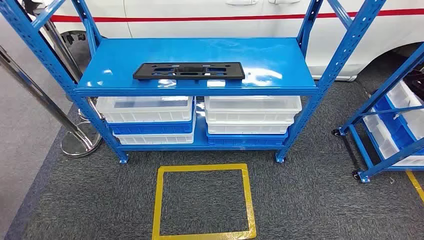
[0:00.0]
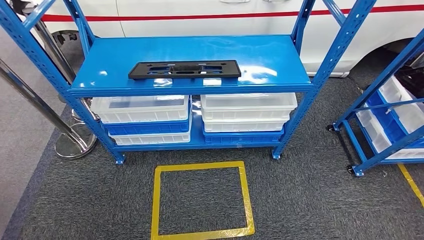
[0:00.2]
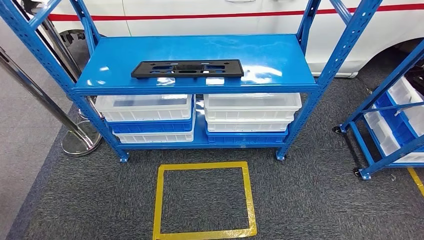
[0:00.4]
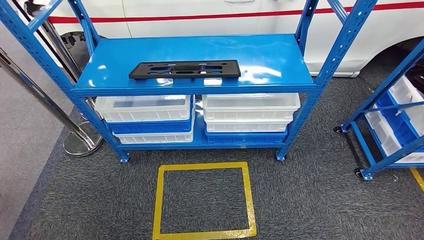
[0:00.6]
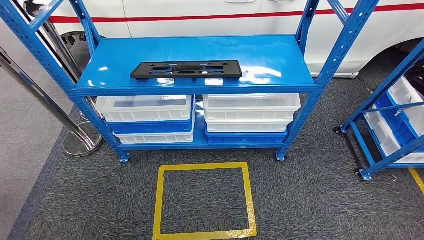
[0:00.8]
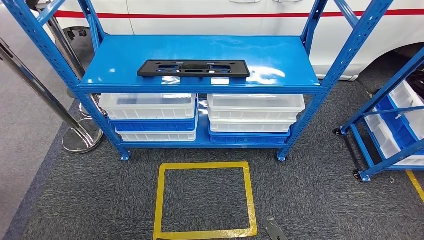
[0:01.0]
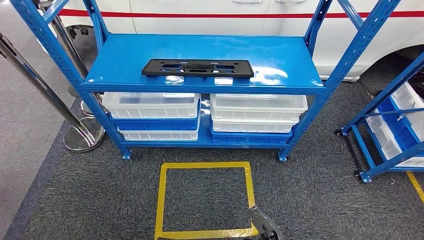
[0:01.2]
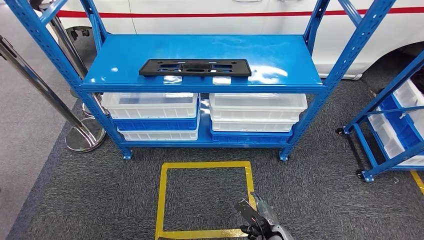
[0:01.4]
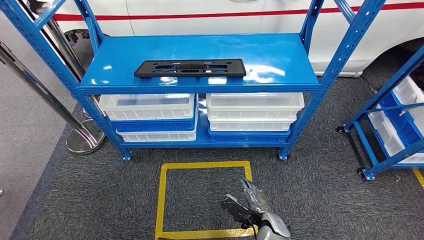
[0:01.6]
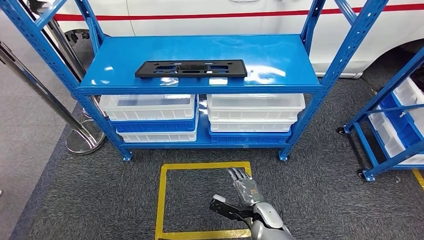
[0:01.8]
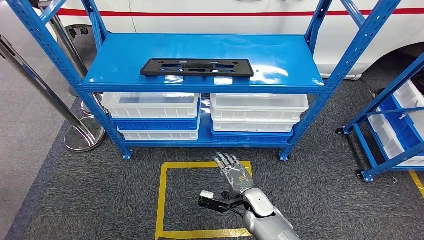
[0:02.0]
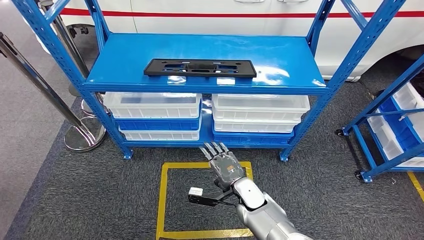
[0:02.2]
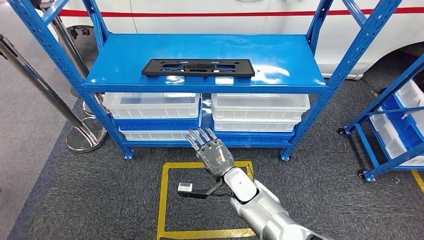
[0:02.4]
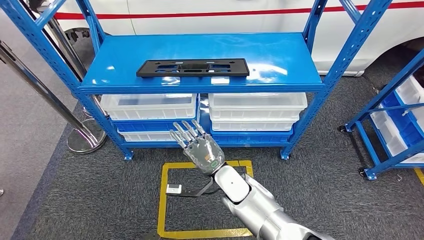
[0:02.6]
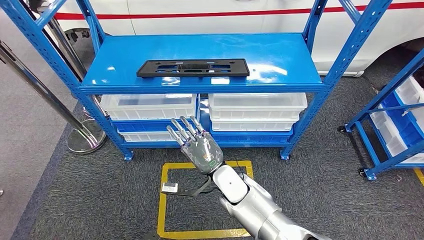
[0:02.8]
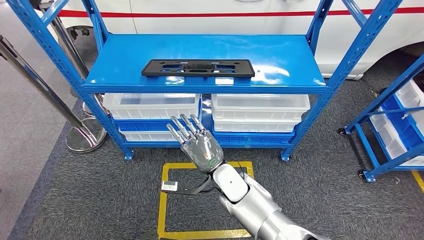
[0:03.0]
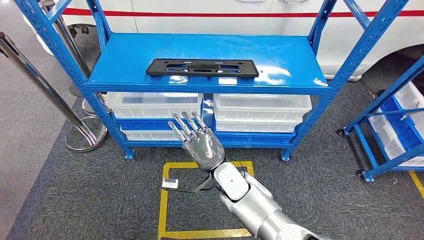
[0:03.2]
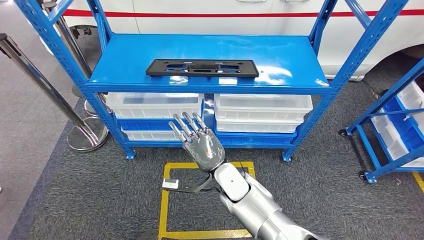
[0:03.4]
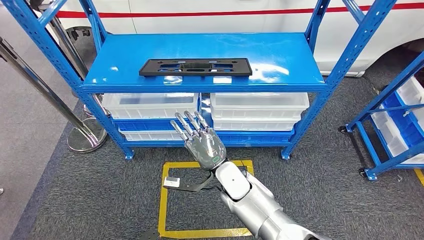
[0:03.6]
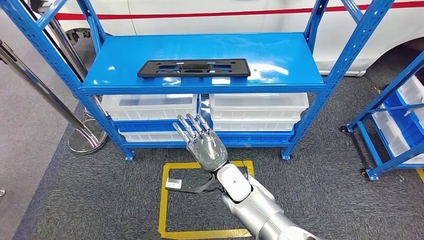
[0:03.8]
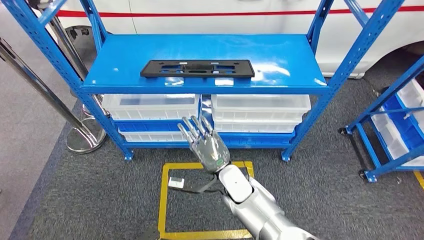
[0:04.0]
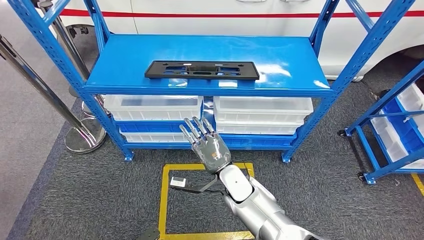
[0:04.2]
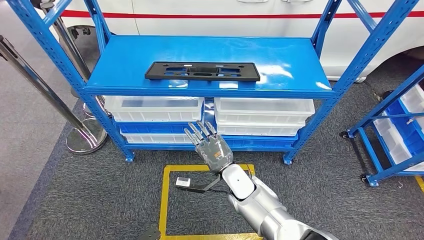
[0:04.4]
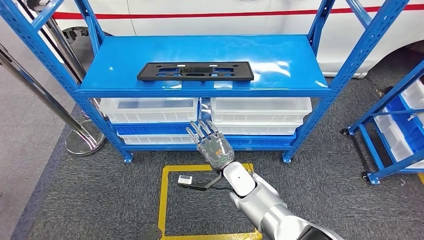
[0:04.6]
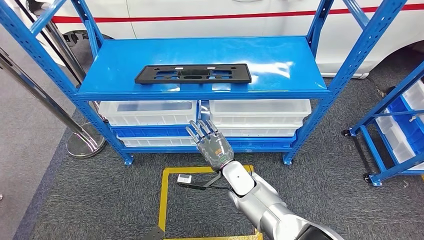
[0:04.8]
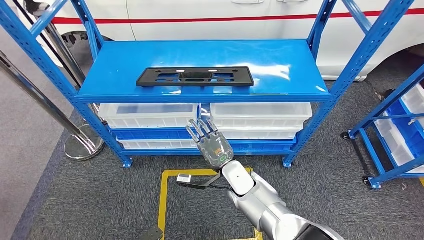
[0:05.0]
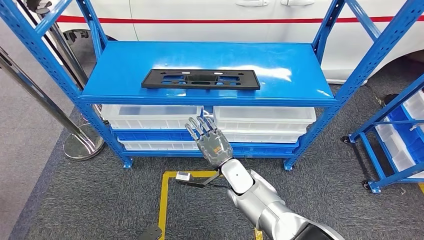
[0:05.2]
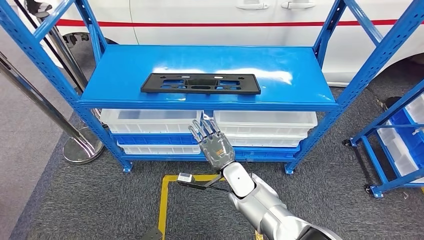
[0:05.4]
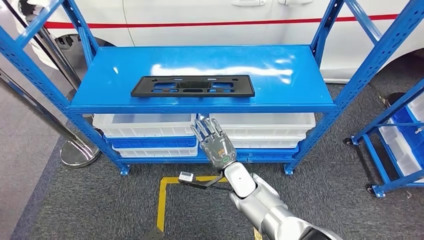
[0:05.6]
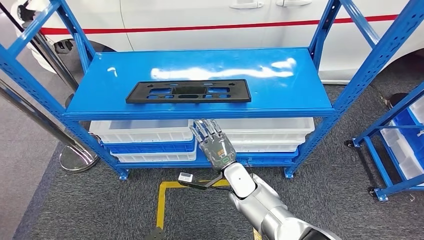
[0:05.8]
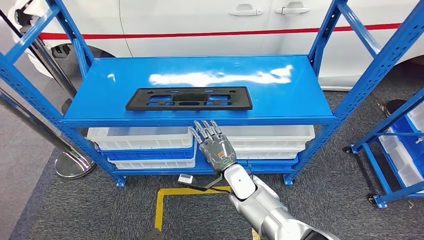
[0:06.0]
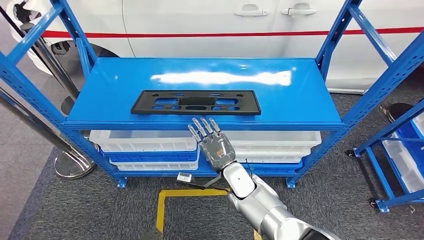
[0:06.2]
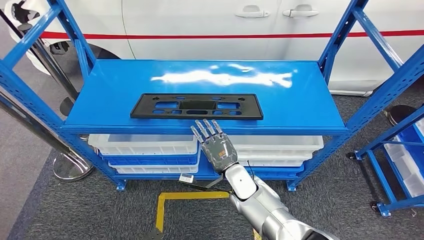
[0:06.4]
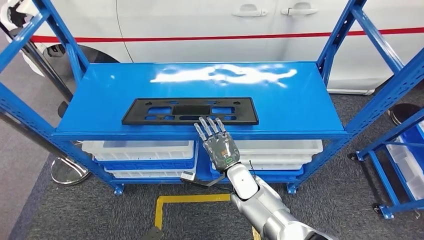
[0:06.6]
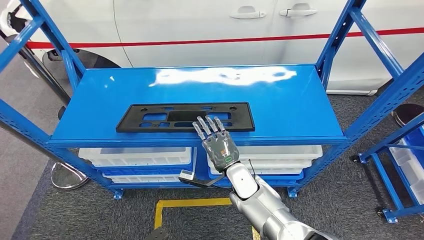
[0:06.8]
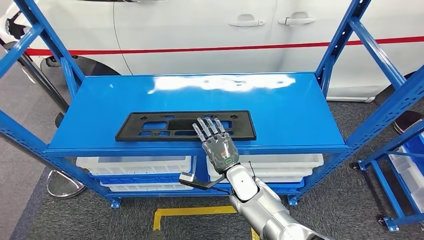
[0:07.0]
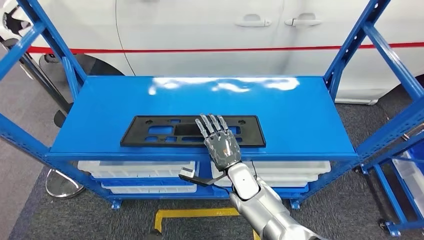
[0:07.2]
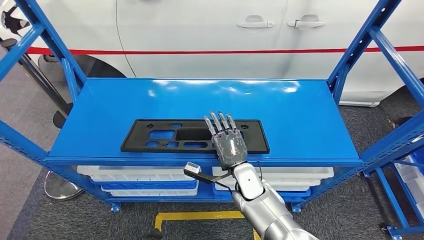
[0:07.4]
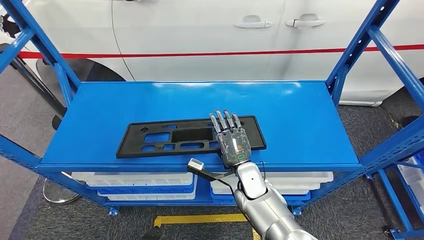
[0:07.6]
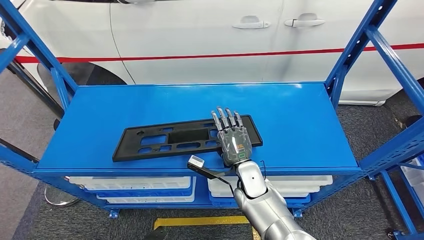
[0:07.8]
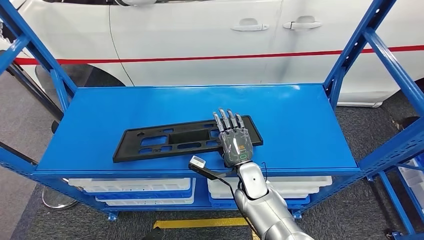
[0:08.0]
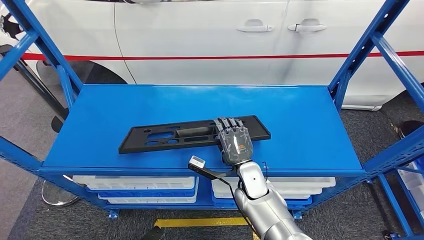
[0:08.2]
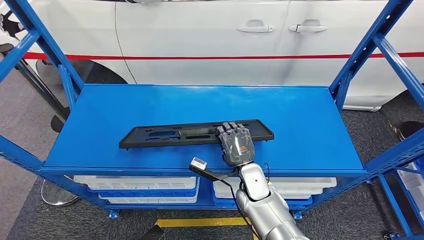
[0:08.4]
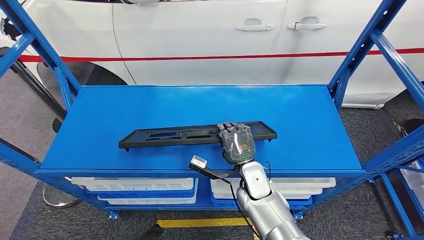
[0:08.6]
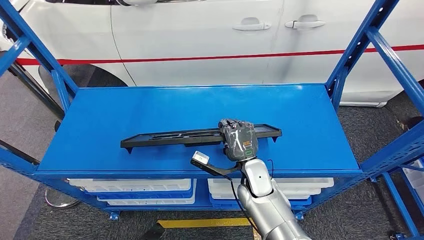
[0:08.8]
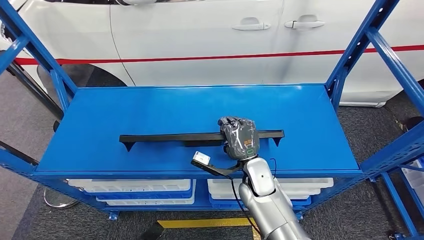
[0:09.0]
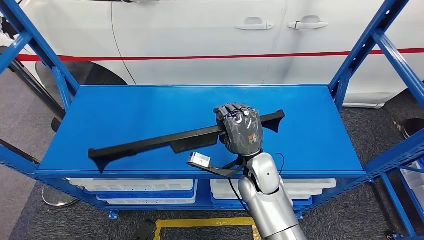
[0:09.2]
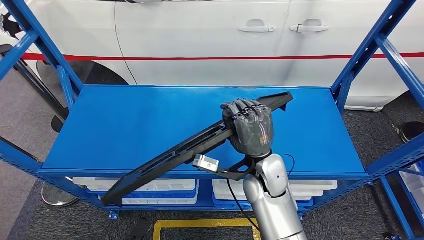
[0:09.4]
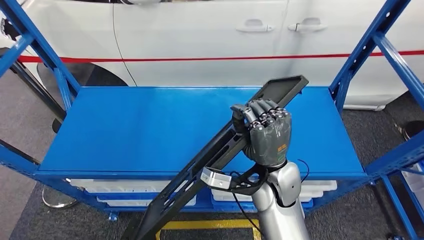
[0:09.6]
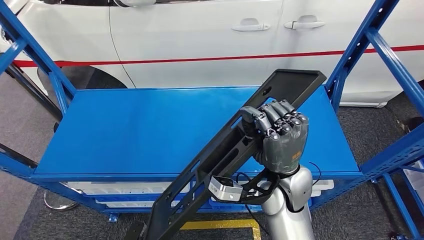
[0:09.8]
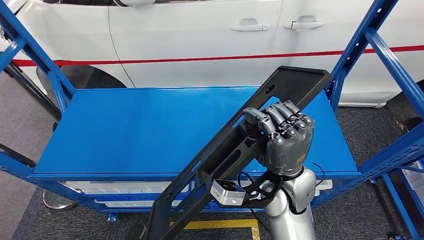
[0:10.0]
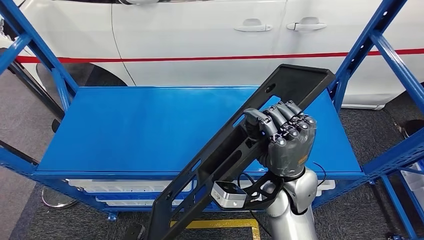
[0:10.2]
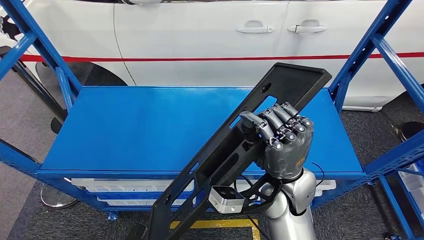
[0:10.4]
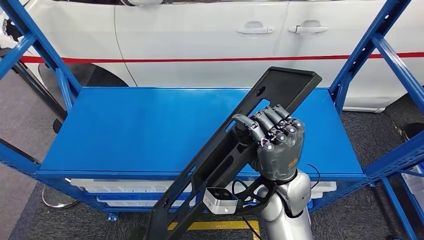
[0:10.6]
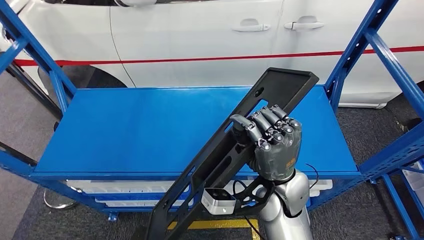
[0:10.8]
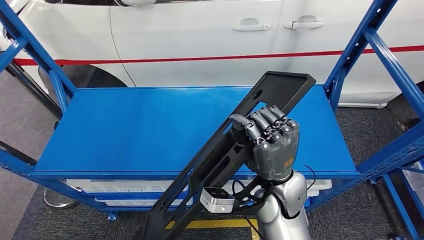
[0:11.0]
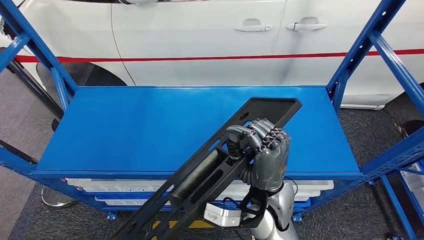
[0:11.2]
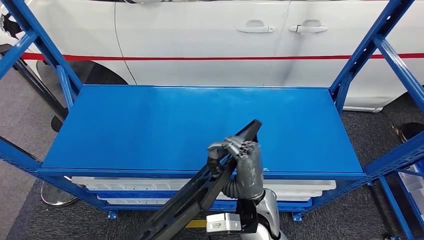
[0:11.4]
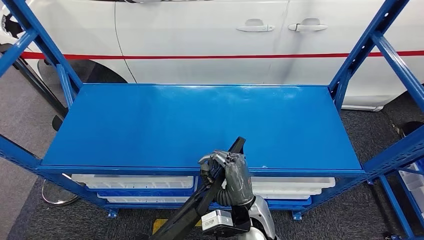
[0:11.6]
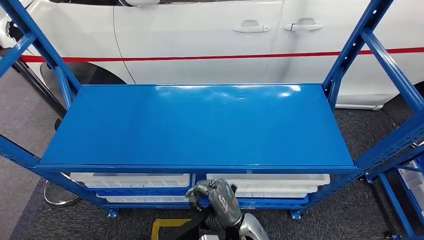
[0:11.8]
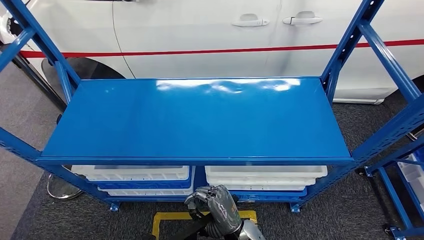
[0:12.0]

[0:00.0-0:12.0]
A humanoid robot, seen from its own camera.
Step, 0:00.0 to 0:09.0: Pick up the large material from the shelf.

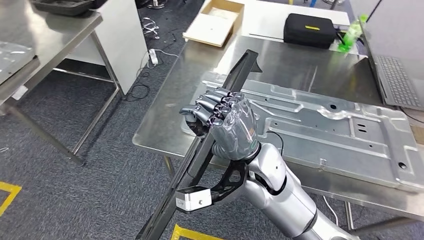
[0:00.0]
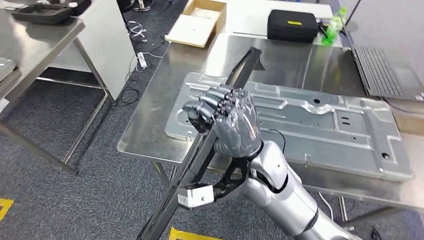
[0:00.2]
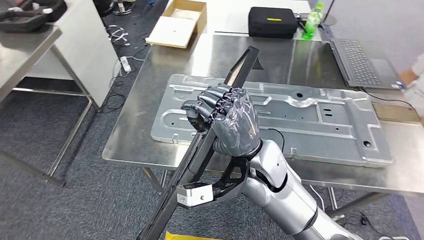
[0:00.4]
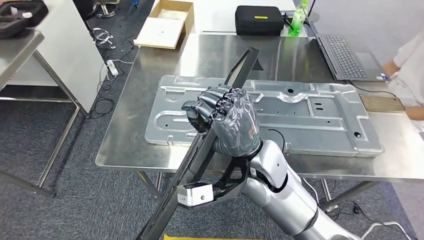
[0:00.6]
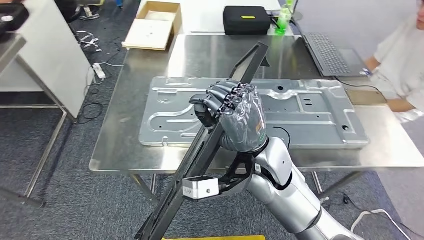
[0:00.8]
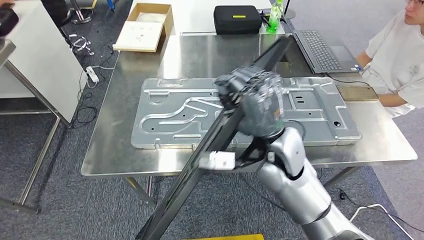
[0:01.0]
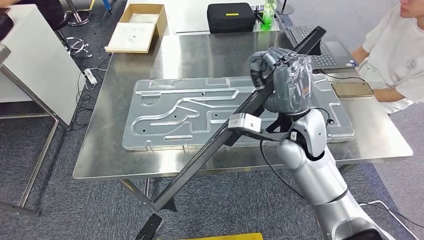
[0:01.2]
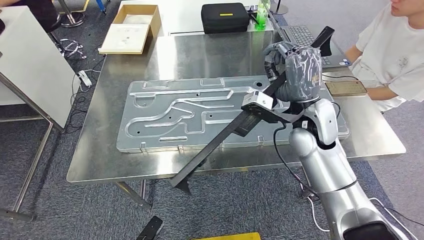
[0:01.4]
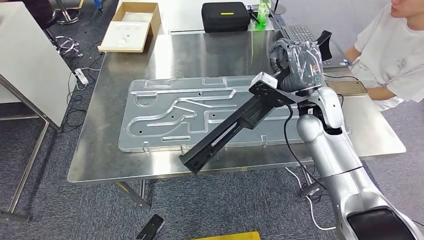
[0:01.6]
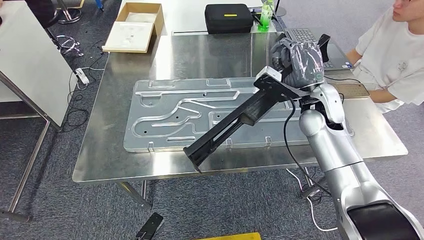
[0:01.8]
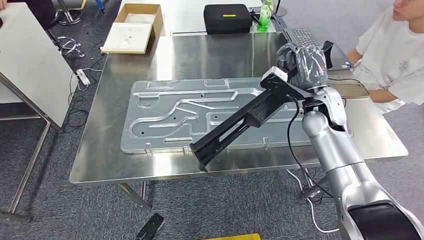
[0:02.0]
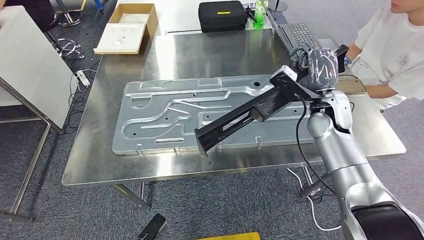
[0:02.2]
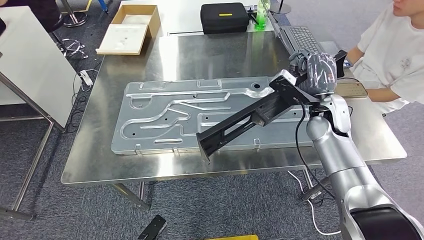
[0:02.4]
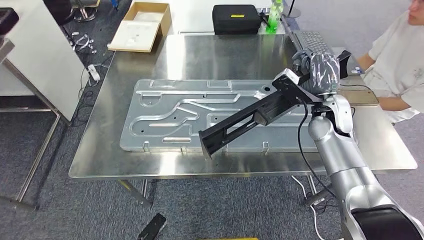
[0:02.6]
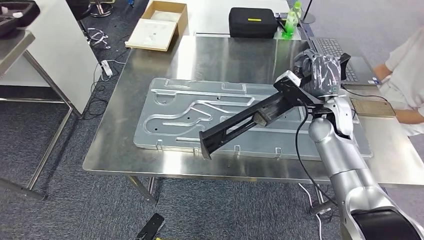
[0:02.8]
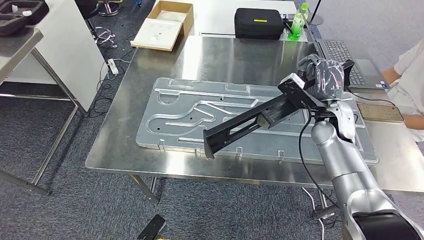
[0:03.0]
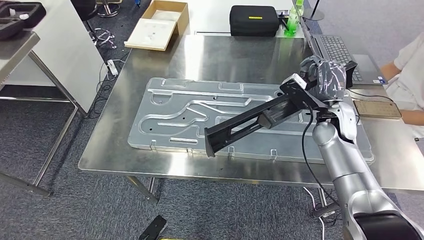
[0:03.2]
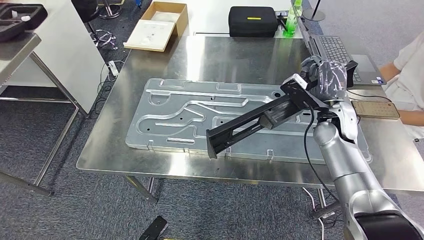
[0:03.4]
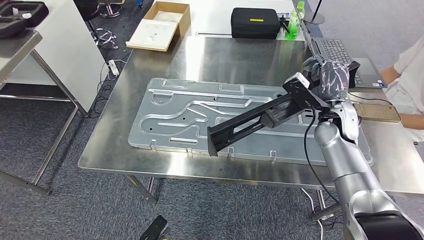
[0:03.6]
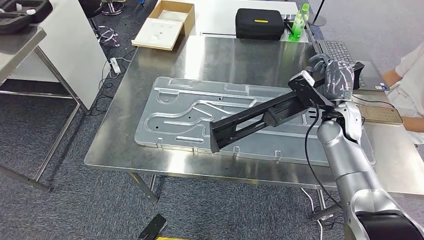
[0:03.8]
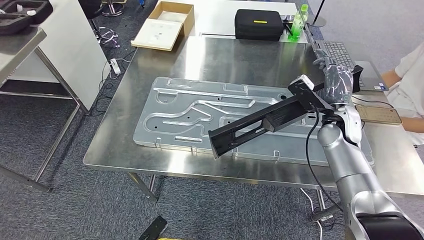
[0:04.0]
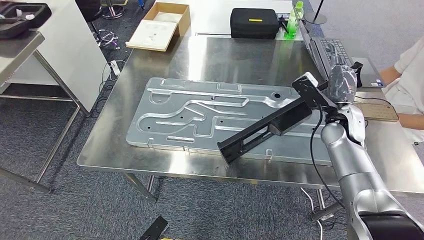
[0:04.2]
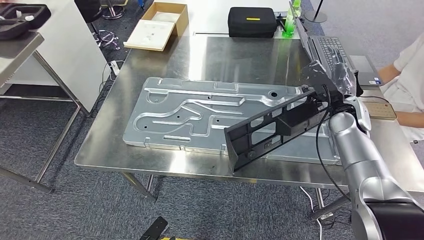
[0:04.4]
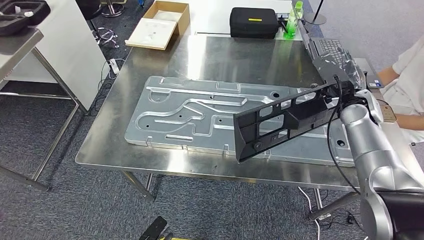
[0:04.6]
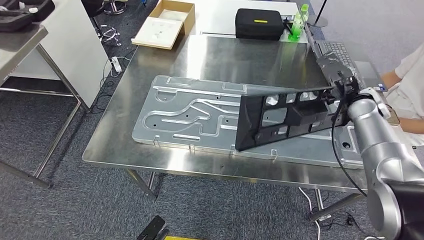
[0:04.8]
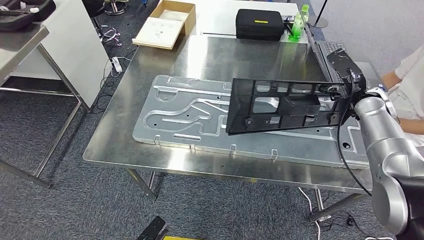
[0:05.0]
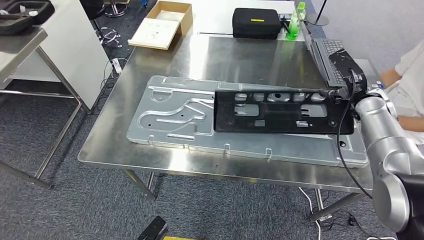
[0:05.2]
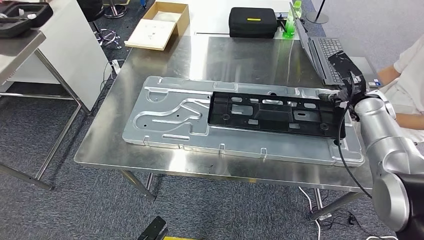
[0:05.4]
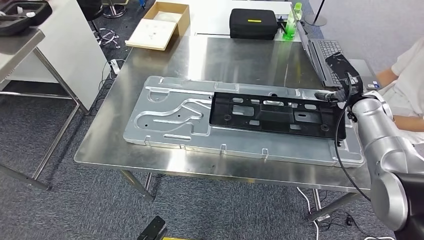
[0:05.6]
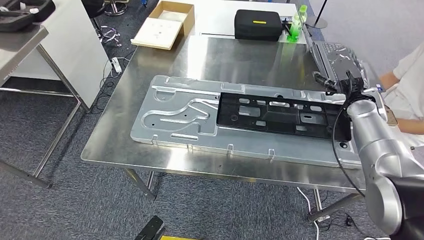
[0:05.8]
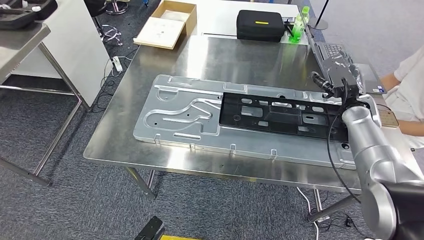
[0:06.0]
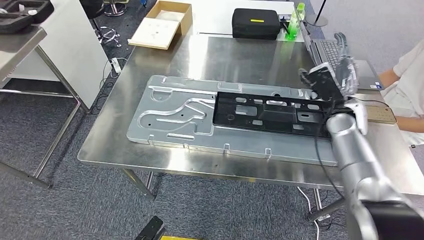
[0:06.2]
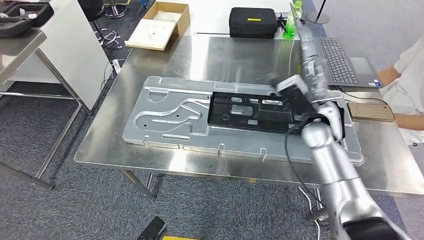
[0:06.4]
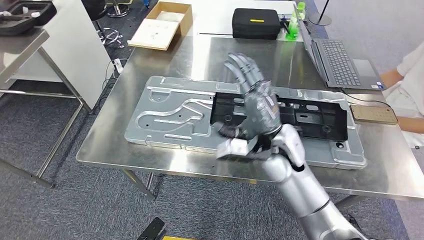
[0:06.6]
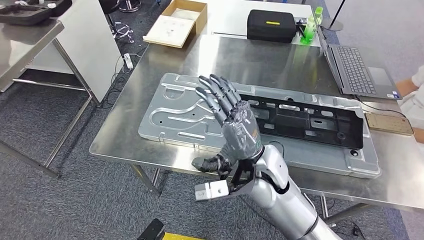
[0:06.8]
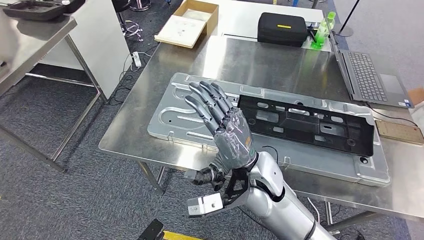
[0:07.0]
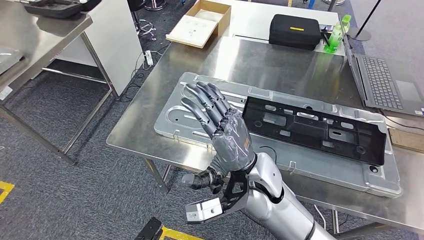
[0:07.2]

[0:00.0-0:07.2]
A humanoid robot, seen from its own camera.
Step, 0:01.8 to 0:06.6: Insert the large material into the corresponding slot on the workbench.
